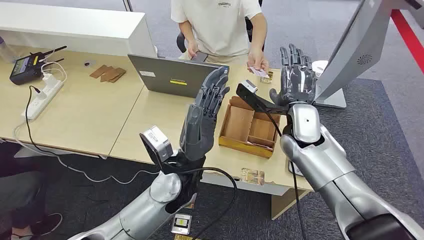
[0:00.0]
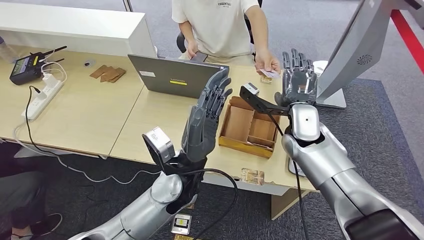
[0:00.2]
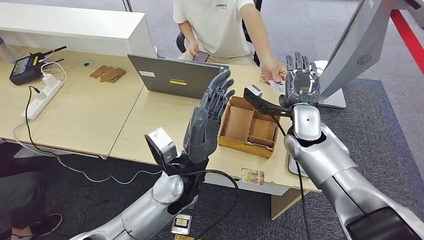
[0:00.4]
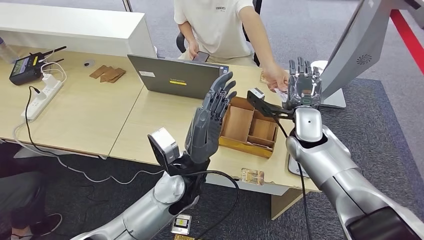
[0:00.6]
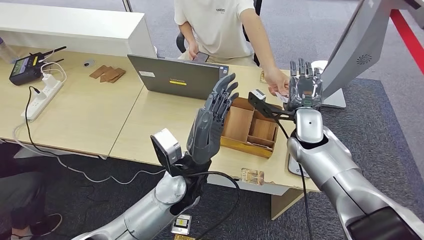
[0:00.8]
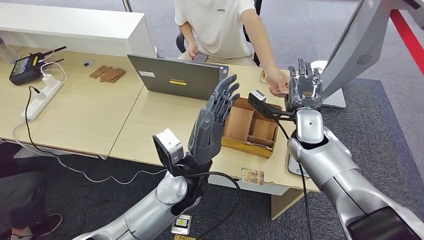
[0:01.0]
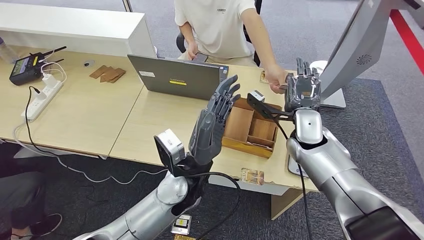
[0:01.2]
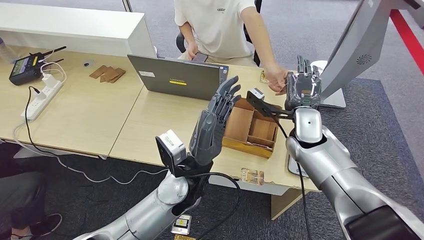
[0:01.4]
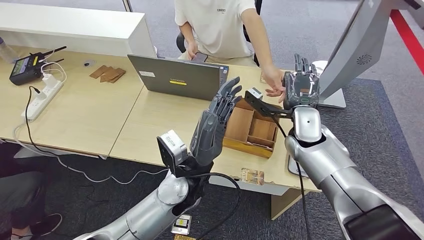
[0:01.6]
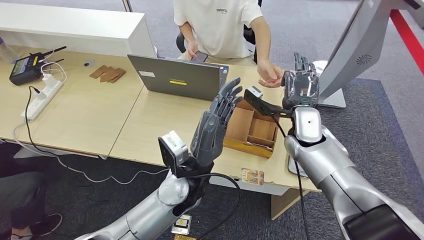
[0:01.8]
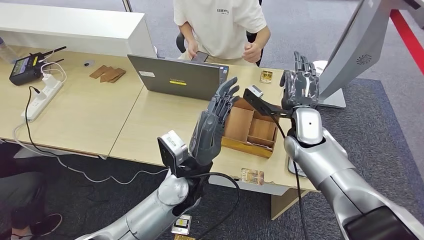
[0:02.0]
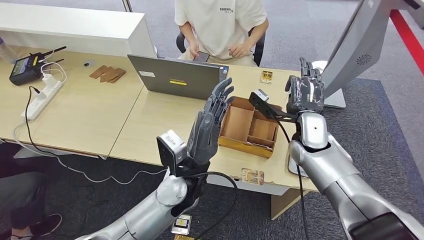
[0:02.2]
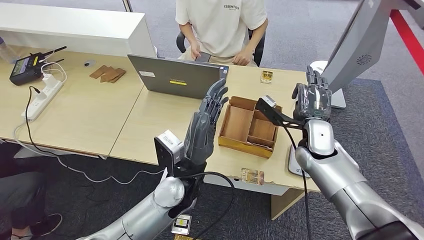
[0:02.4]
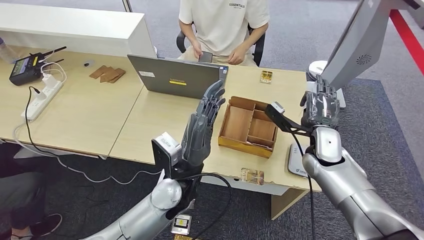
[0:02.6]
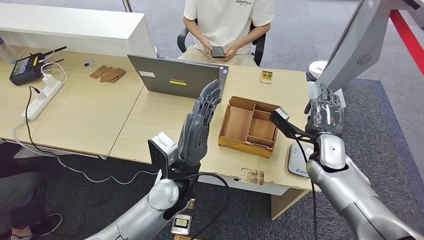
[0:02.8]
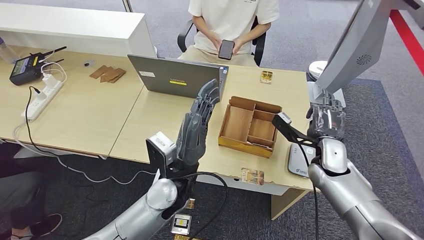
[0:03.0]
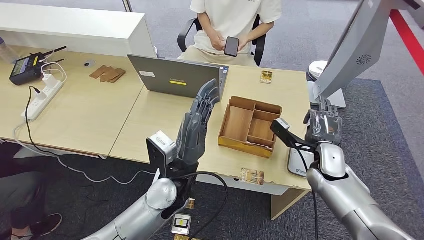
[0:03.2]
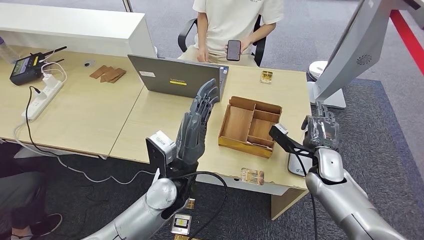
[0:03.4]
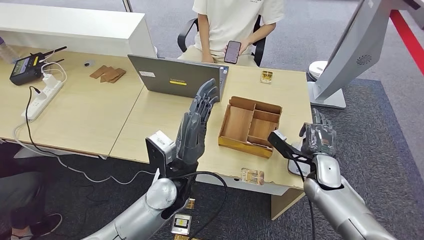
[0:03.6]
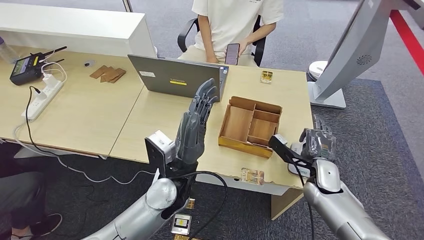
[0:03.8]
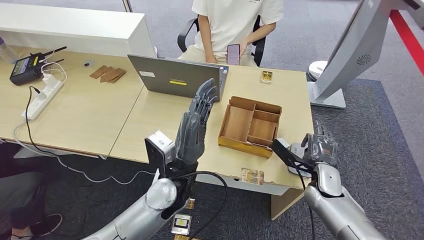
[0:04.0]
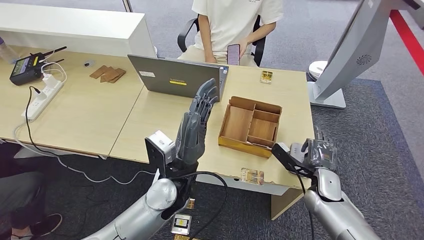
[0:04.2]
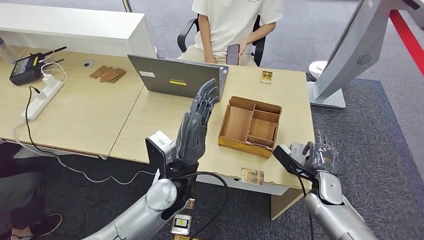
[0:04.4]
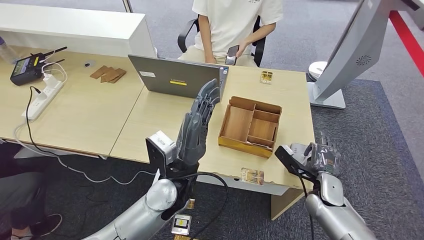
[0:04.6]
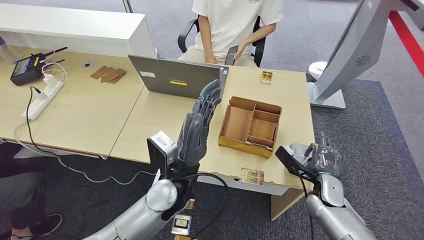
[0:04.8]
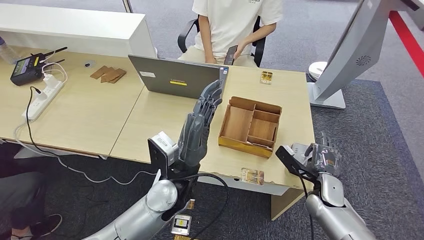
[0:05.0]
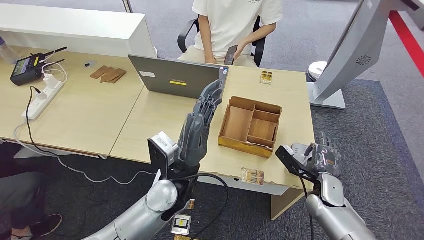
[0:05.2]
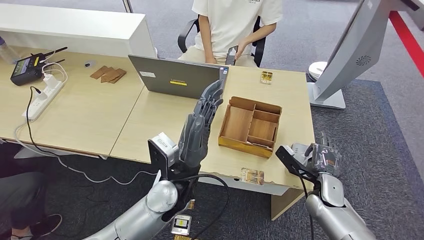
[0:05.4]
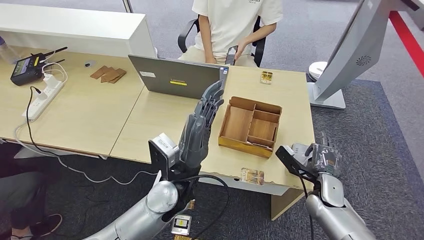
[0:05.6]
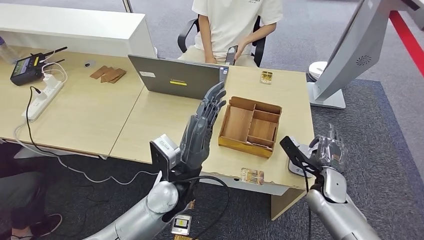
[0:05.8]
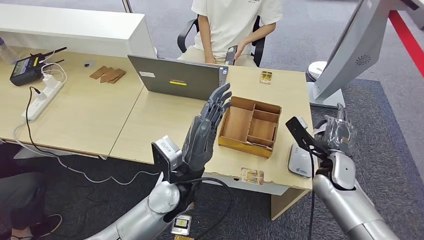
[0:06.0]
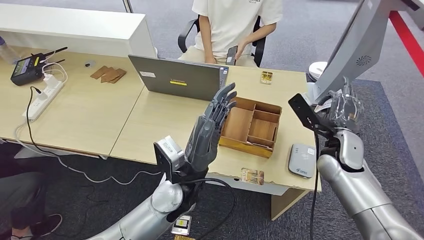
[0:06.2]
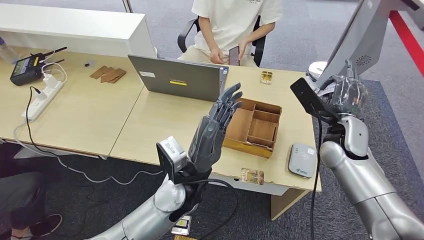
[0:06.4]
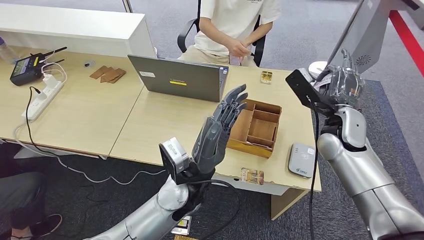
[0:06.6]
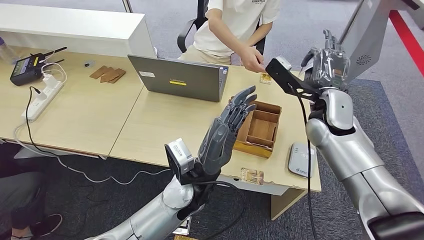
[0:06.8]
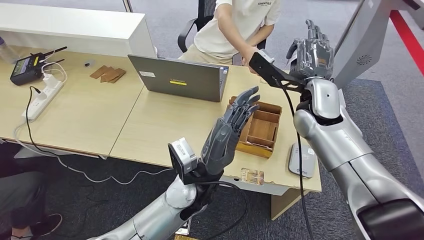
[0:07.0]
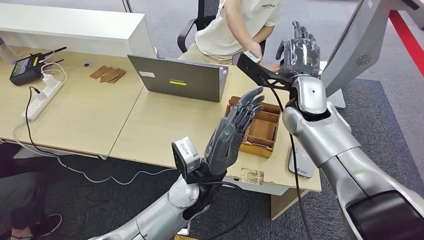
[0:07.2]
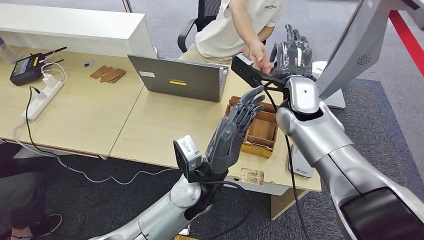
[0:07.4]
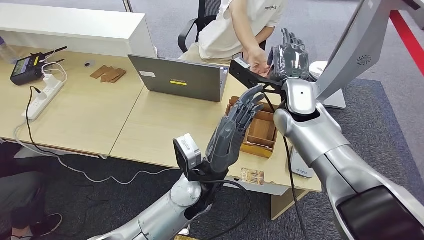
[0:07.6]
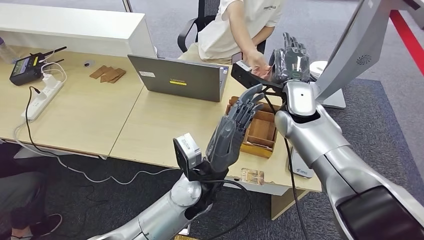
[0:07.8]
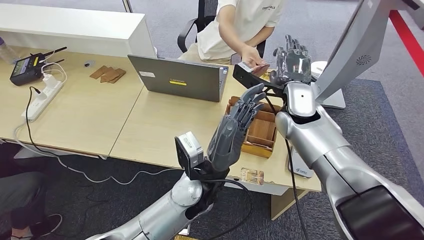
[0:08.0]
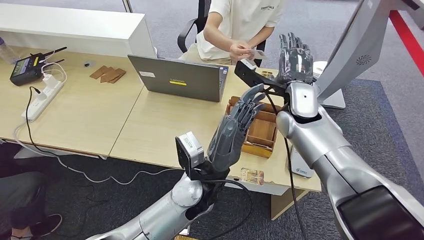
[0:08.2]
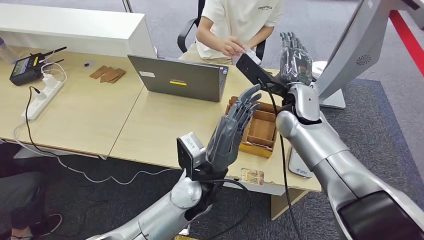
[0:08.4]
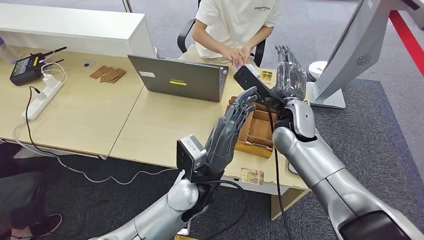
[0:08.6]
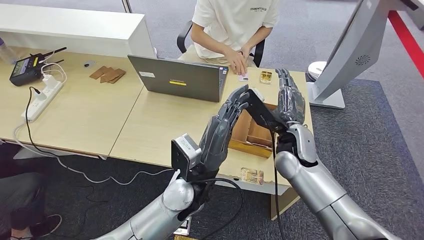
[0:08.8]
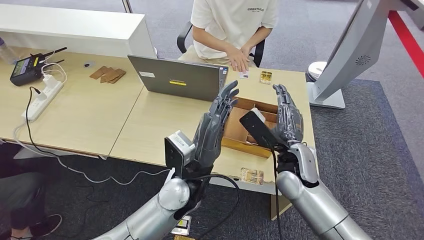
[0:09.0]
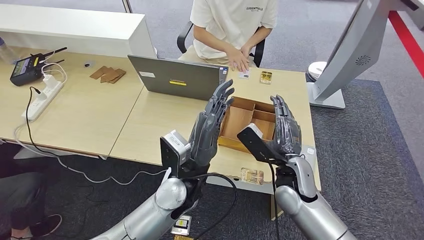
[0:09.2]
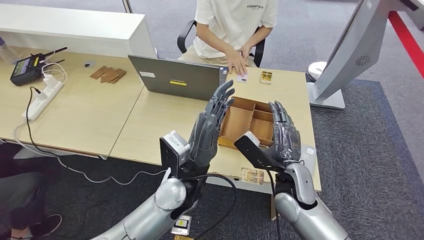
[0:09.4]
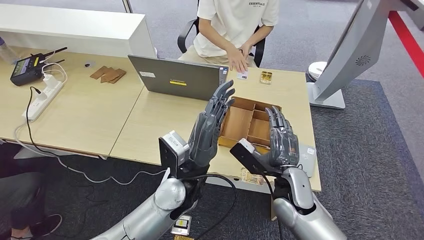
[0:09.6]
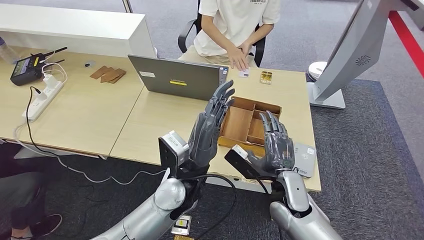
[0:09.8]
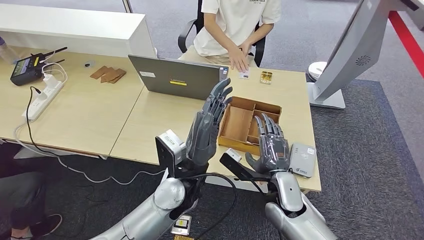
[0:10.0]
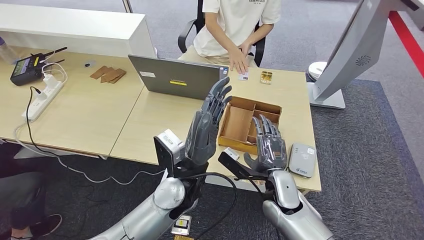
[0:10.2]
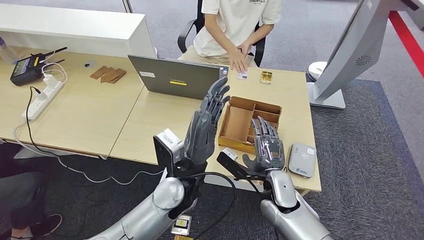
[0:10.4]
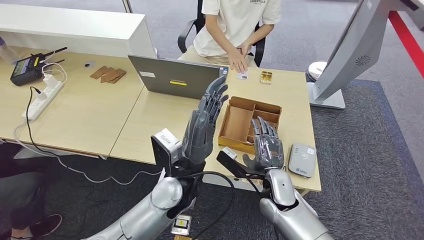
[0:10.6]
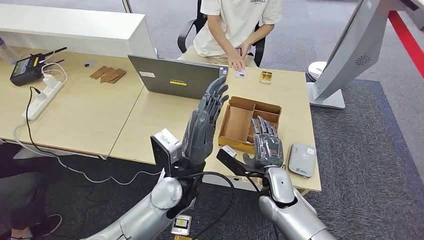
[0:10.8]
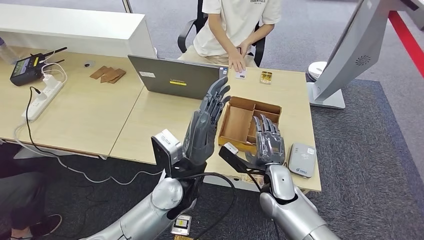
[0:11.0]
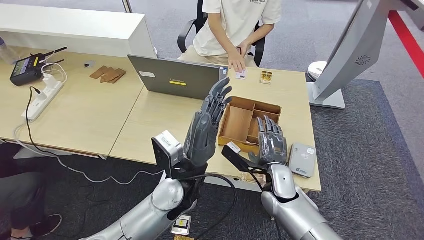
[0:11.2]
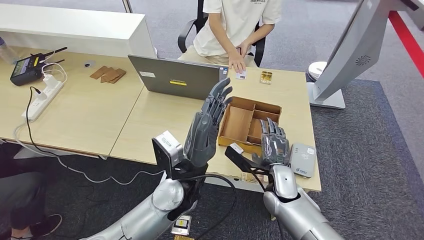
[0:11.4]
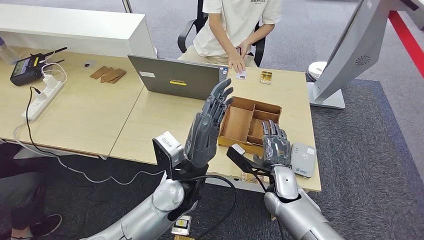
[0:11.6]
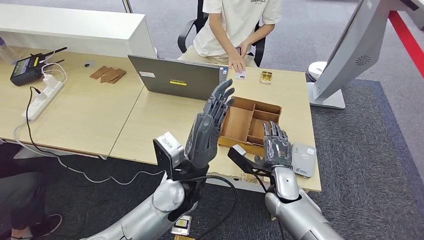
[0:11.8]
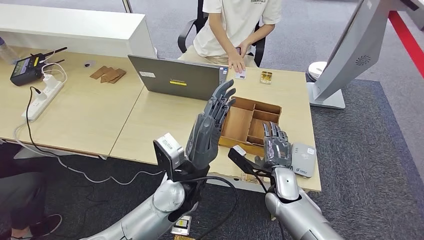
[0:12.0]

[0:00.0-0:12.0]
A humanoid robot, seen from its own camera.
Step, 0:00.0 to 0:02.4: Take the ID card from the person's hand.
Step, 0:02.8 to 0:05.8: Place the ID card on the card reader.
Step, 0:06.0 to 0:08.8: Hand the ID card to the person.
0:03.0 to 0:04.4: The right hand is displaced downward and backward by some 10 cm.
0:04.4 to 0:06.0: The right hand is displaced upward by about 5 cm.
0:09.0 to 0:10.4: The right hand is displaced downward by about 10 cm.
0:10.4 to 0:12.0: The hands move only a little.

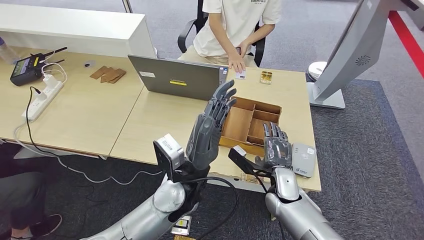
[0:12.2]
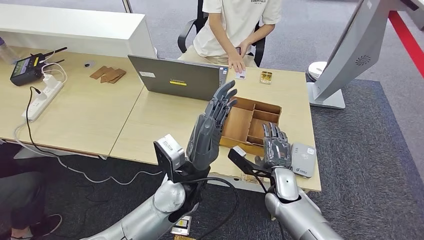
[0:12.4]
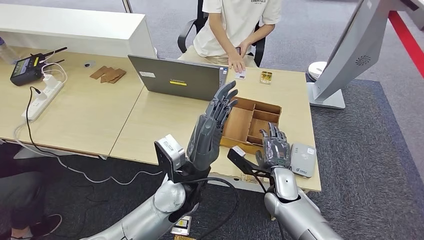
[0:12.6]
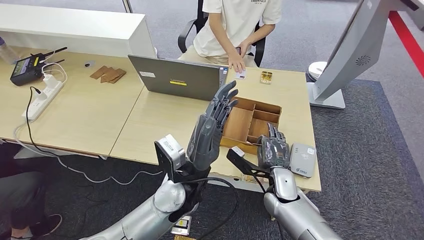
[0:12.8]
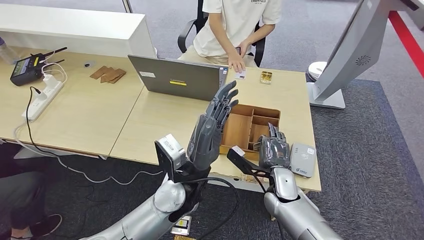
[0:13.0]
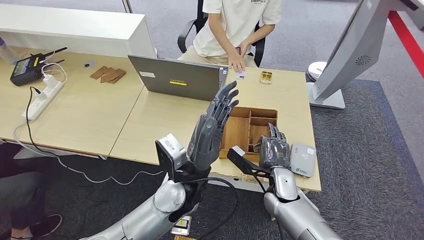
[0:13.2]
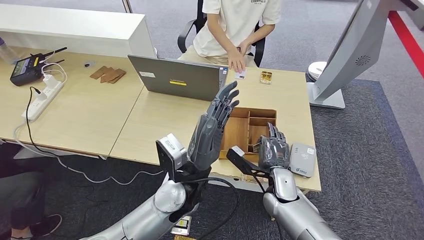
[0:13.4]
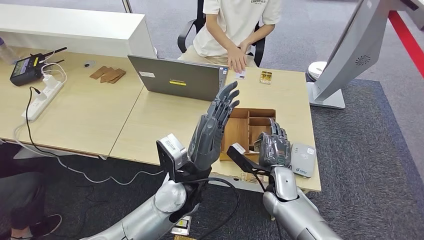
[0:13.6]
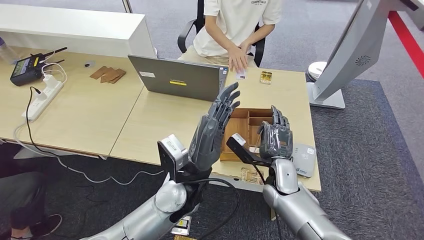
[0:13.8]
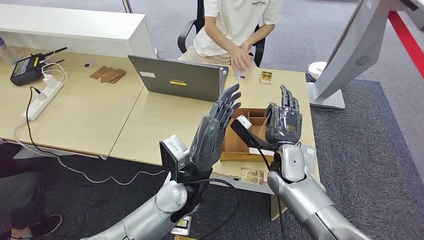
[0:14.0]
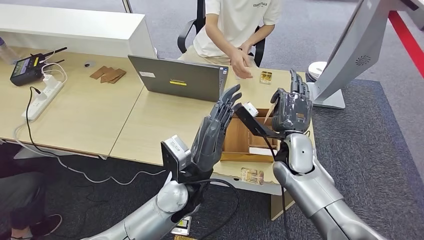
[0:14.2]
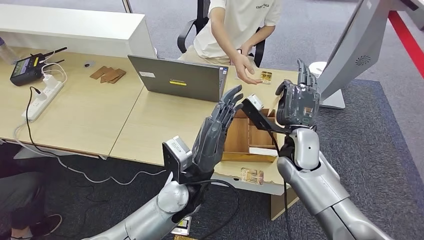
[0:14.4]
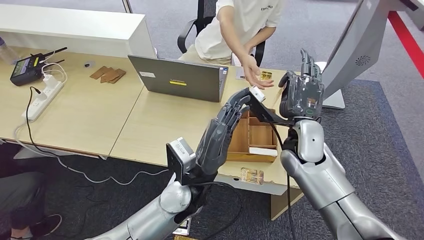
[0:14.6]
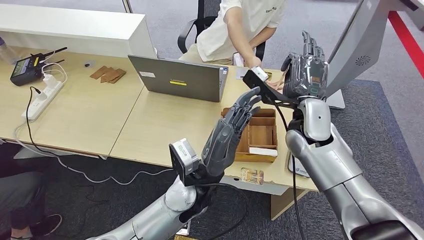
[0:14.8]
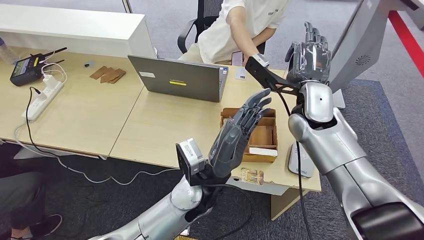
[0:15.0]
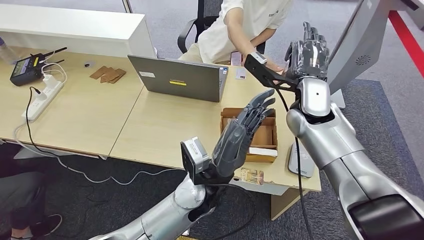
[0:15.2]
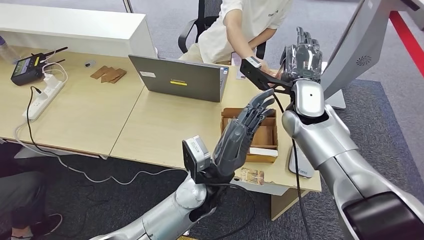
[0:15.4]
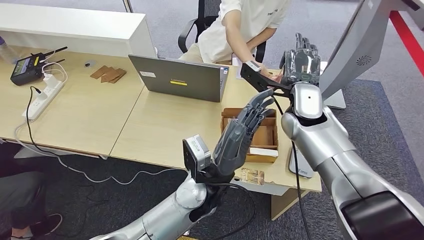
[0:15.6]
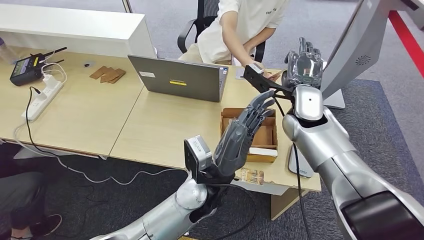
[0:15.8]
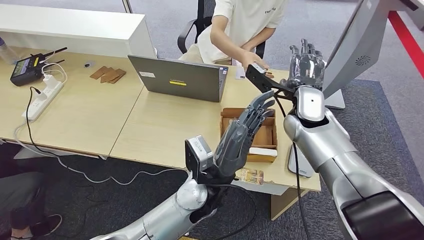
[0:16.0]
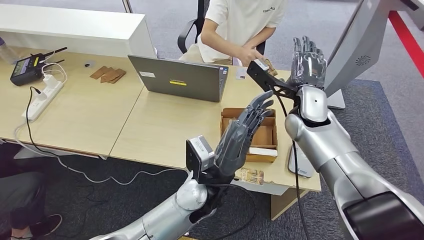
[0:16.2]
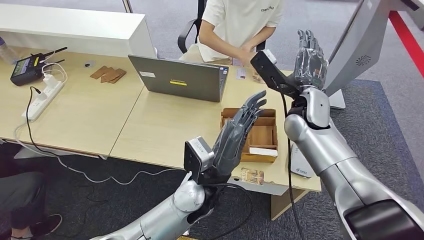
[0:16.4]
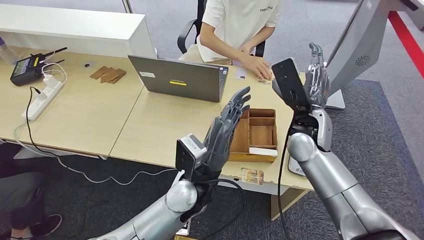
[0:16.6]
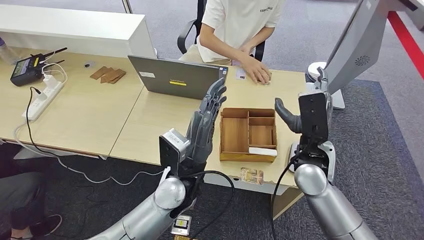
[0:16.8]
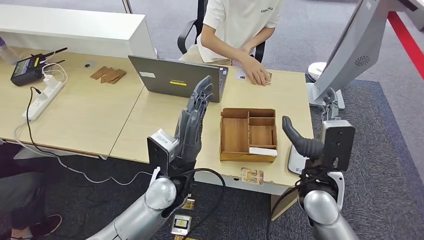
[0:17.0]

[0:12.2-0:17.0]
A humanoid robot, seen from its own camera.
Step, 0:12.8 to 0:14.4: Pick up the room key from the key card box.
Step, 0:14.8 to 0:17.0: Hand the room key to the person.
0:12.2 to 0:13.8: The hands move only a little.
